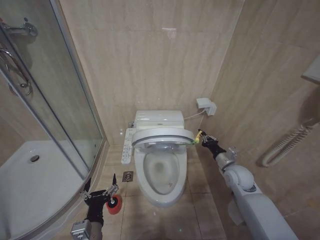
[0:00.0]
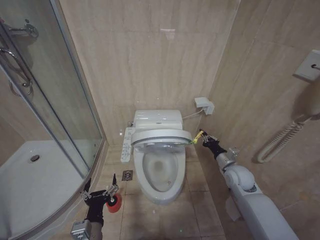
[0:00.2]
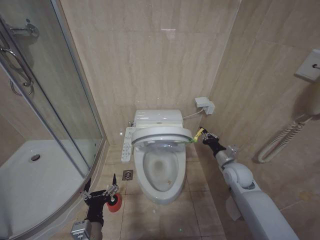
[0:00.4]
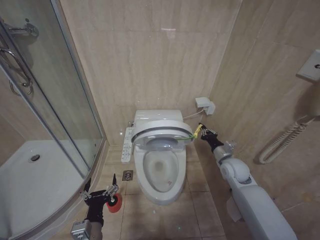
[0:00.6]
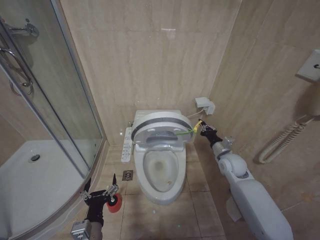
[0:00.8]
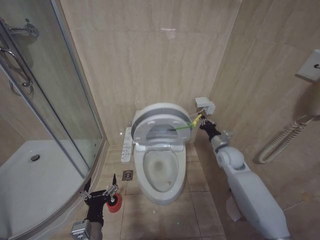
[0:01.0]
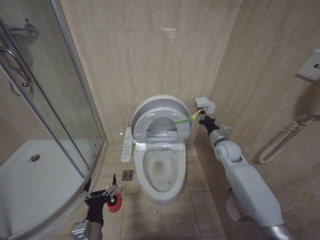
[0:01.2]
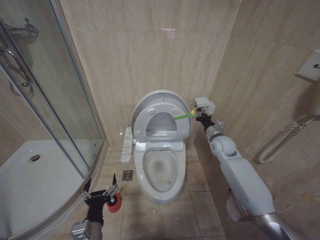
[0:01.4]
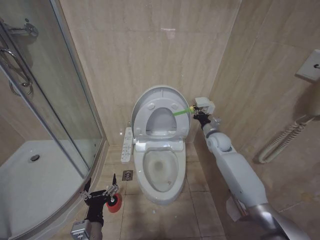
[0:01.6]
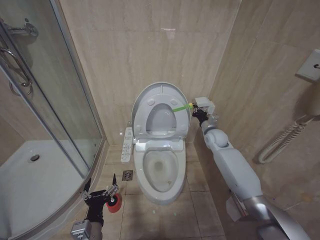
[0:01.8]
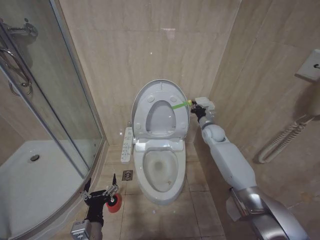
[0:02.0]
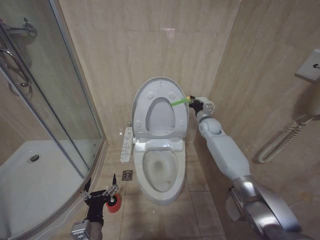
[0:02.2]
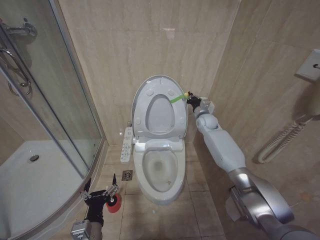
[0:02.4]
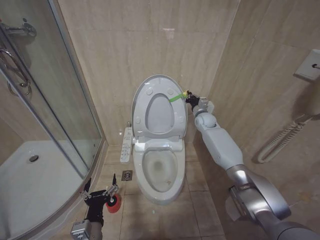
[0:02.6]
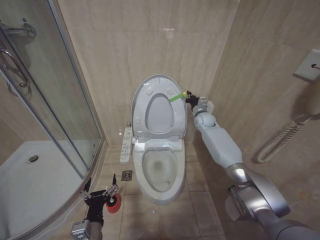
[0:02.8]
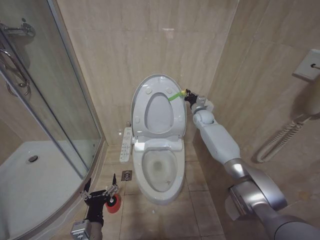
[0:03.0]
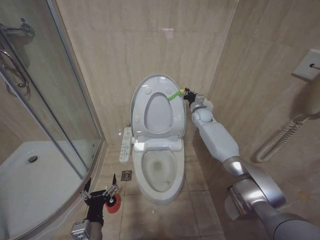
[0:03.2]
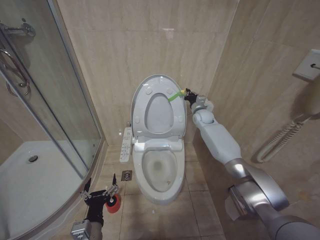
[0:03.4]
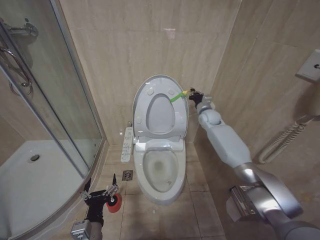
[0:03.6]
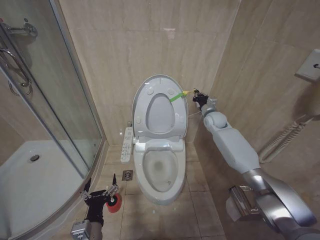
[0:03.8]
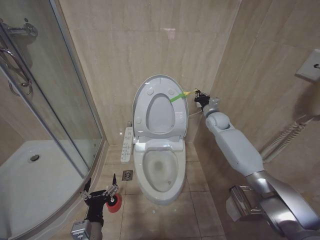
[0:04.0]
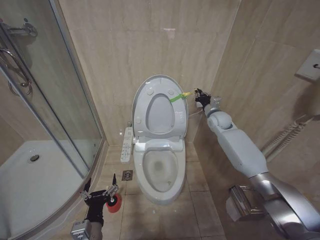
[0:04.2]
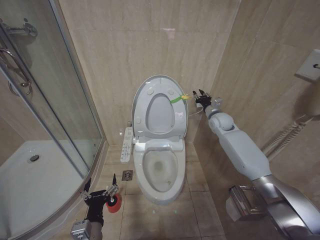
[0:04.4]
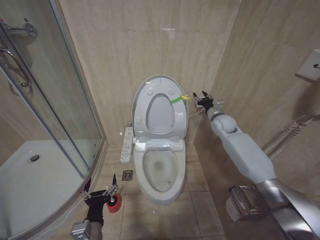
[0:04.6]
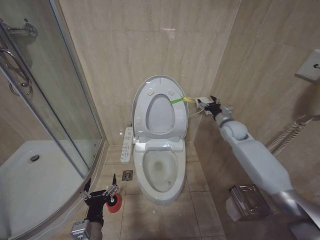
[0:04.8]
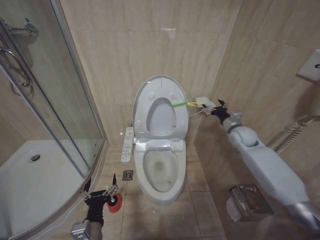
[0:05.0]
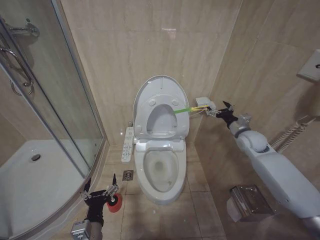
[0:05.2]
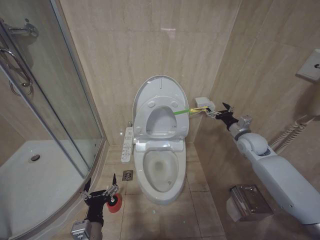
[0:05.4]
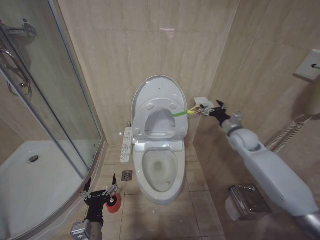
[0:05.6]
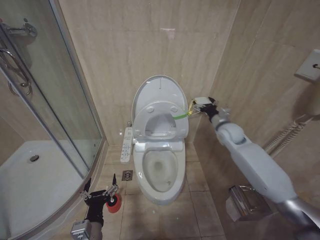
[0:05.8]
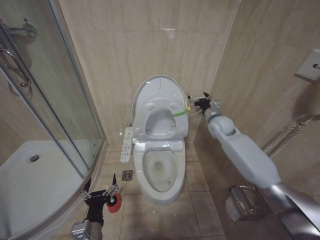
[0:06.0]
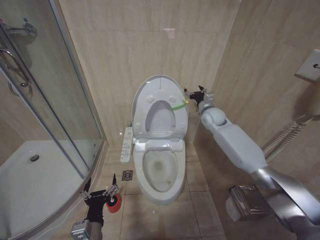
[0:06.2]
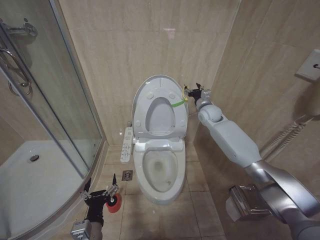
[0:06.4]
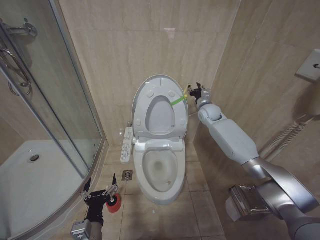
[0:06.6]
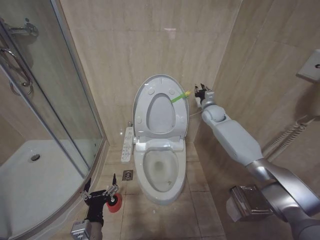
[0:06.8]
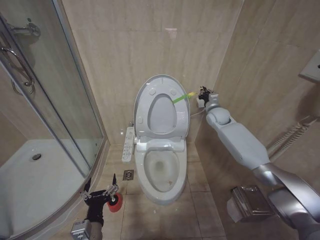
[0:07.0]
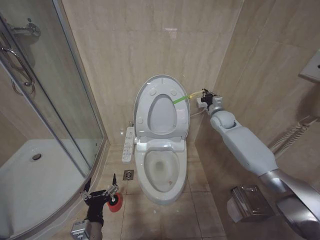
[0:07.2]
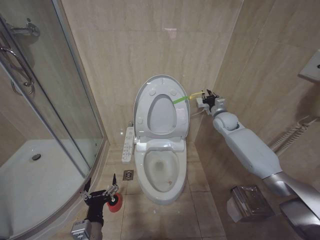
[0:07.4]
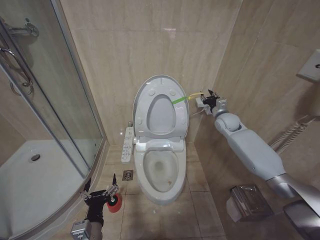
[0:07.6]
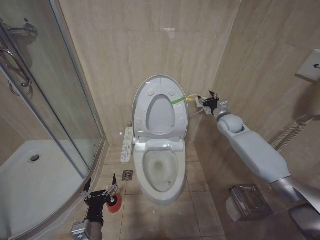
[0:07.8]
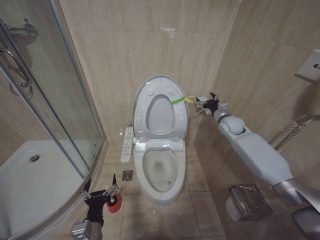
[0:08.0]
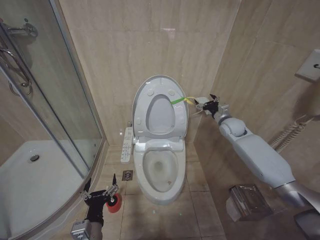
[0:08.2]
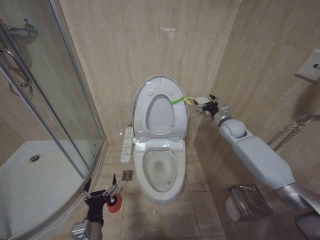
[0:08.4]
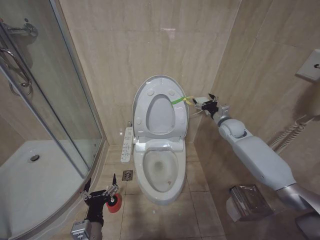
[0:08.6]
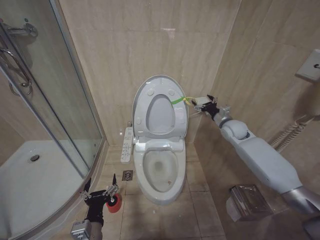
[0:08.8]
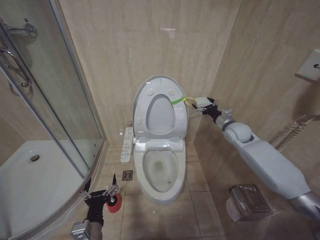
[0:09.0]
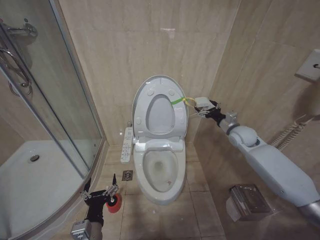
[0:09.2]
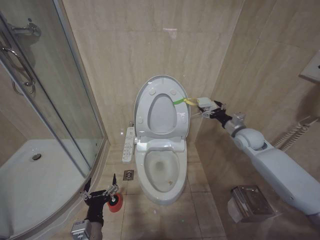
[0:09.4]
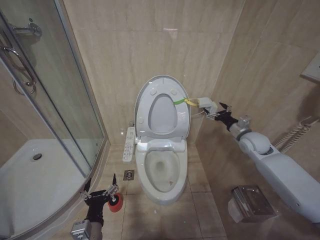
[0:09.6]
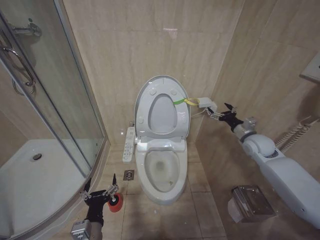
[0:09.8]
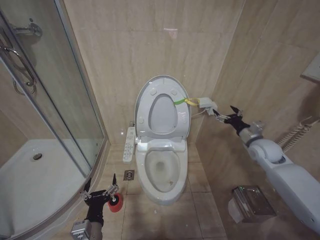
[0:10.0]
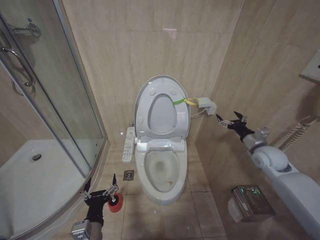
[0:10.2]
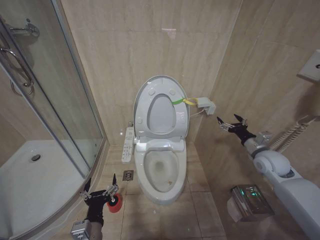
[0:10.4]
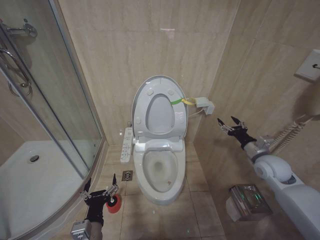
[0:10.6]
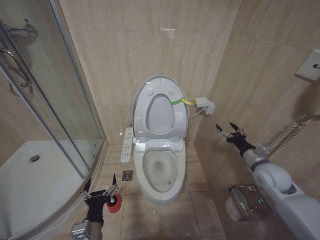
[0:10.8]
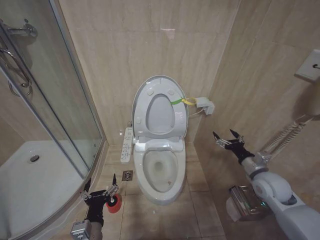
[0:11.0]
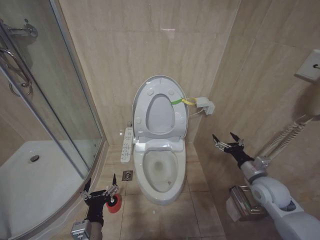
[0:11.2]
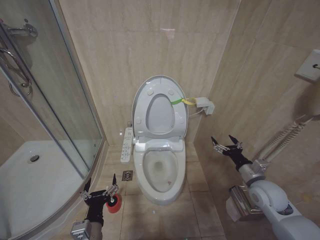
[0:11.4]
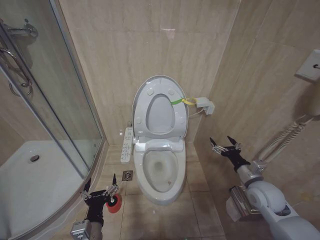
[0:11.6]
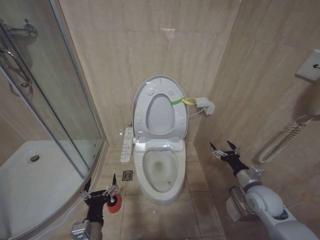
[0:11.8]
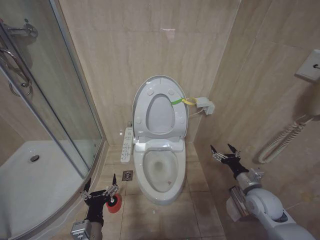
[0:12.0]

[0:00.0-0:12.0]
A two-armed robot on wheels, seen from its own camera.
Task of the whole recording: Open the toilet lid, clean the toilet bowl with a toilet brush, close the toilet lid, and flush.
0:00.0 to 0:01.6: The right gripper is displaced forward and upward by some 15 cm.
0:01.6 to 0:03.0: The right gripper goes about 15 cm forward and upward.
0:03.0 to 0:04.4: The right gripper moves backward, about 5 cm.
0:04.4 to 0:06.0: The right gripper opens its fingers.
0:06.0 to 0:07.6: The right gripper closes.
0:07.6 to 0:09.0: The right gripper changes place by roughly 5 cm, and opens its fingers.
0:09.0 to 0:10.4: The right gripper heads backward and to the right, covering about 15 cm.
0:10.4 to 0:12.0: The right gripper travels downward, backward and to the left by roughly 15 cm.

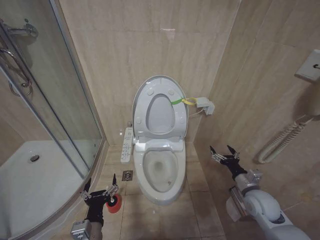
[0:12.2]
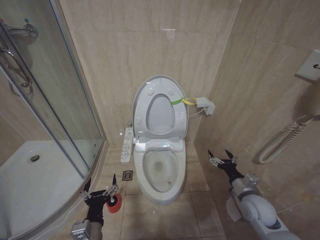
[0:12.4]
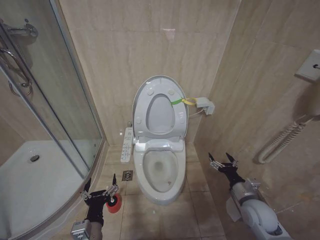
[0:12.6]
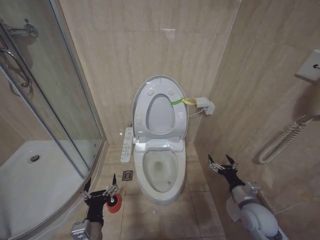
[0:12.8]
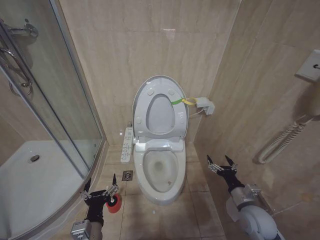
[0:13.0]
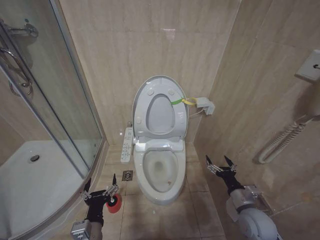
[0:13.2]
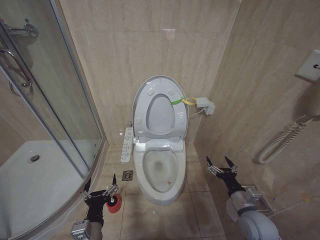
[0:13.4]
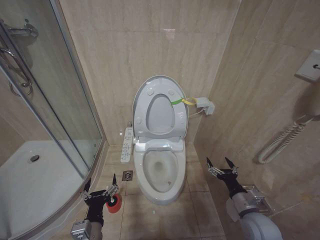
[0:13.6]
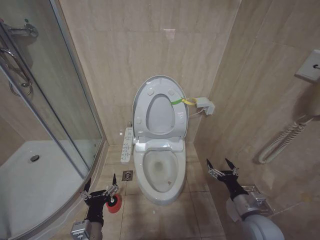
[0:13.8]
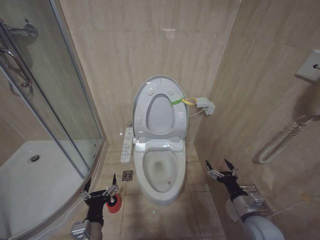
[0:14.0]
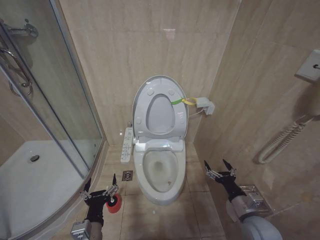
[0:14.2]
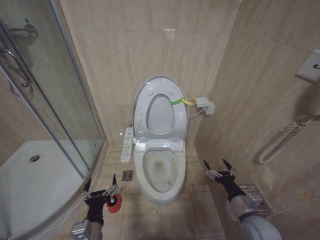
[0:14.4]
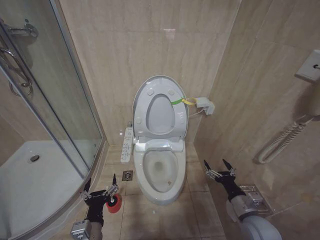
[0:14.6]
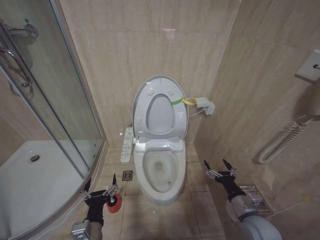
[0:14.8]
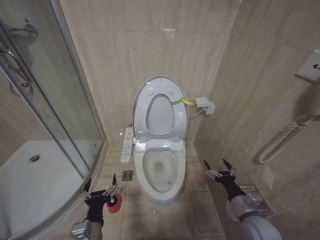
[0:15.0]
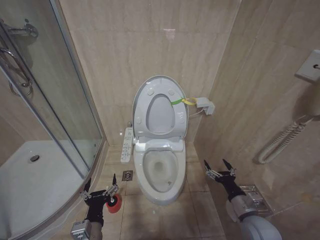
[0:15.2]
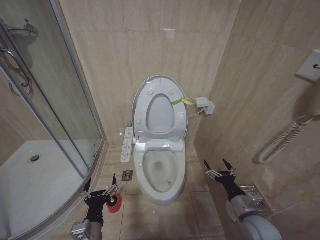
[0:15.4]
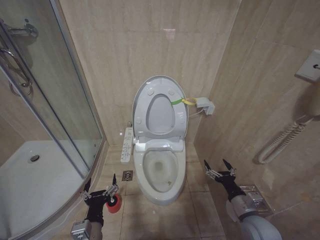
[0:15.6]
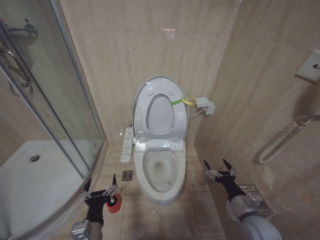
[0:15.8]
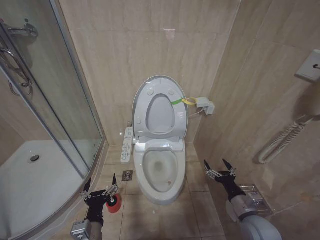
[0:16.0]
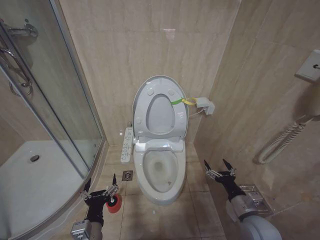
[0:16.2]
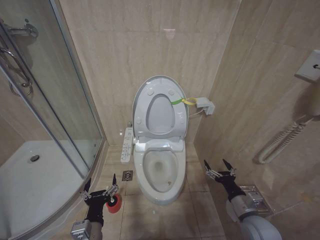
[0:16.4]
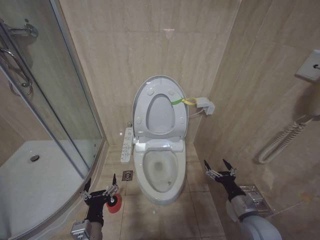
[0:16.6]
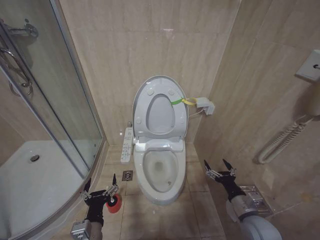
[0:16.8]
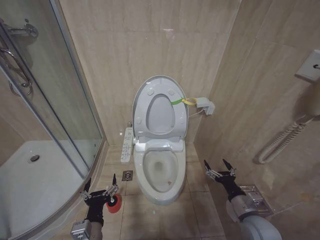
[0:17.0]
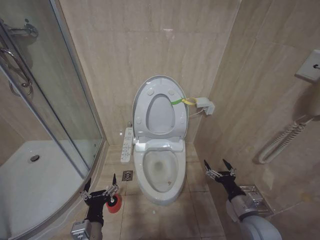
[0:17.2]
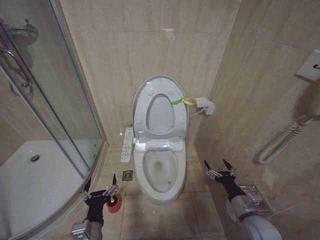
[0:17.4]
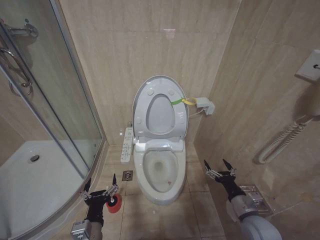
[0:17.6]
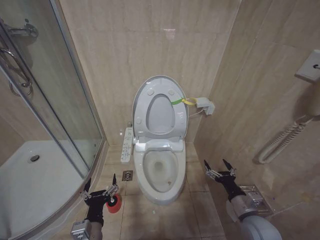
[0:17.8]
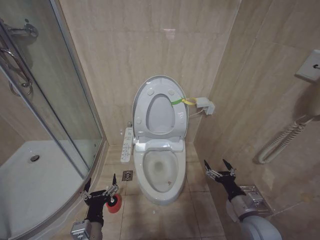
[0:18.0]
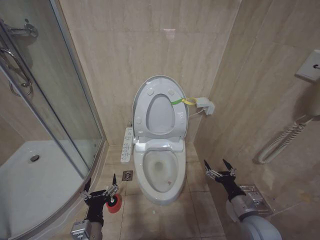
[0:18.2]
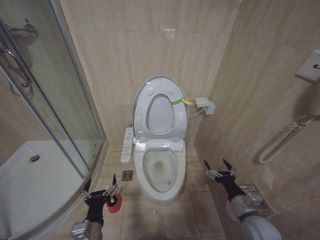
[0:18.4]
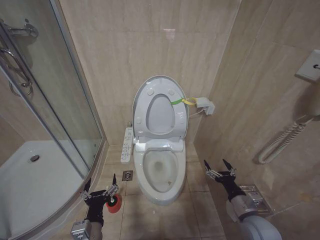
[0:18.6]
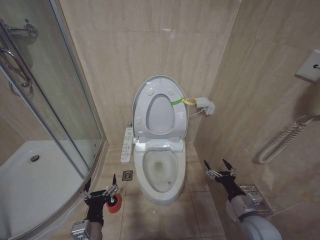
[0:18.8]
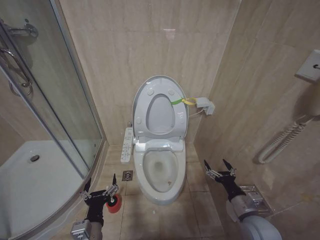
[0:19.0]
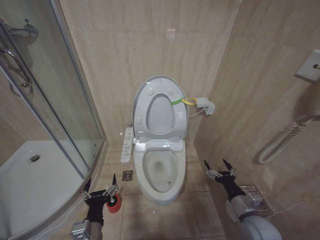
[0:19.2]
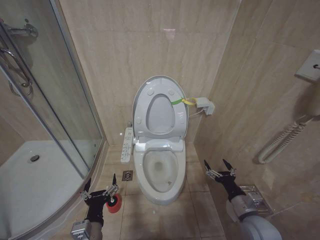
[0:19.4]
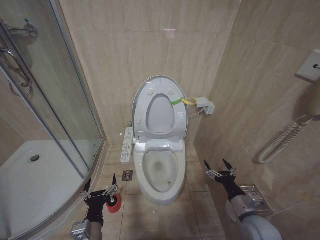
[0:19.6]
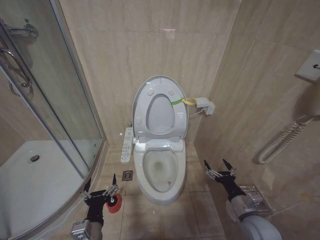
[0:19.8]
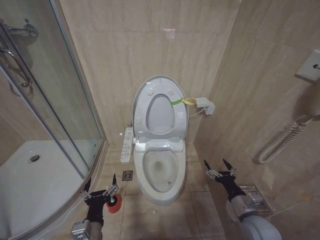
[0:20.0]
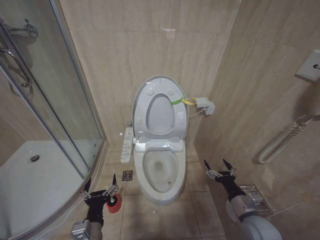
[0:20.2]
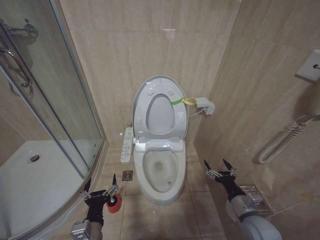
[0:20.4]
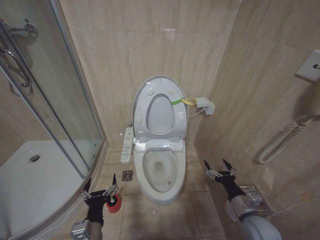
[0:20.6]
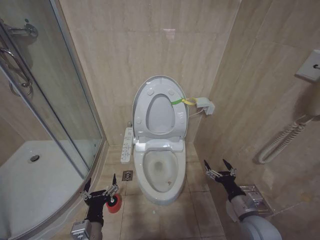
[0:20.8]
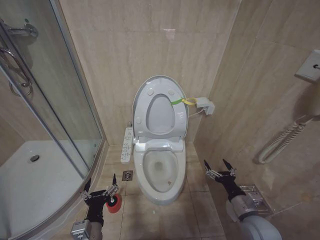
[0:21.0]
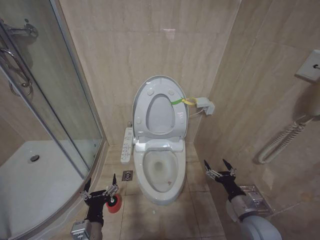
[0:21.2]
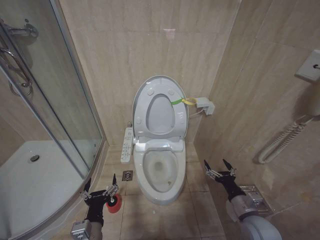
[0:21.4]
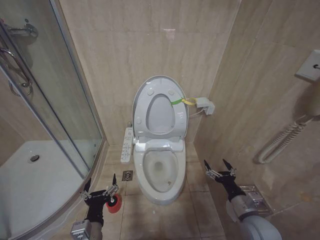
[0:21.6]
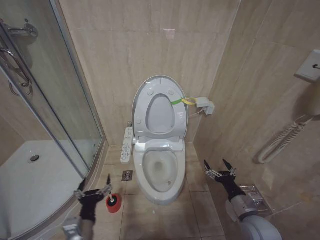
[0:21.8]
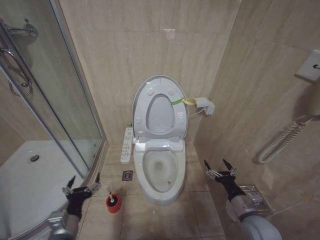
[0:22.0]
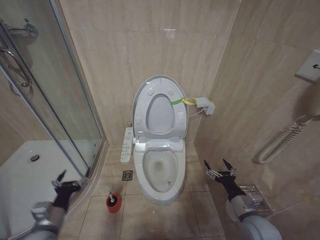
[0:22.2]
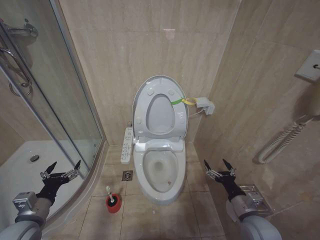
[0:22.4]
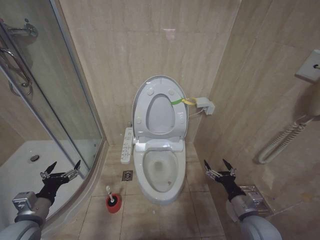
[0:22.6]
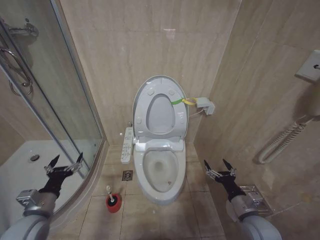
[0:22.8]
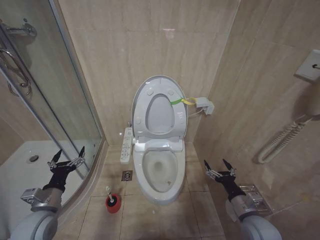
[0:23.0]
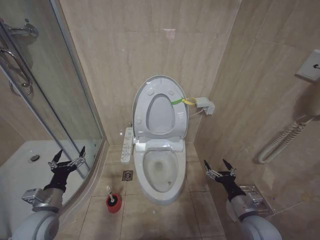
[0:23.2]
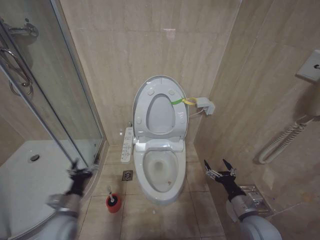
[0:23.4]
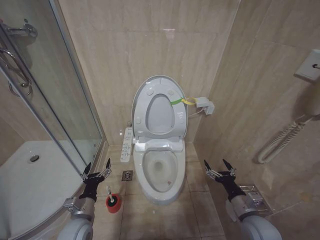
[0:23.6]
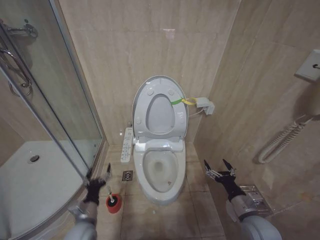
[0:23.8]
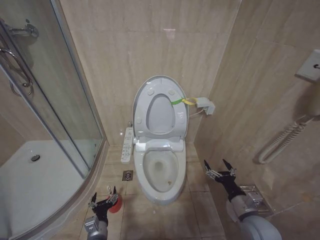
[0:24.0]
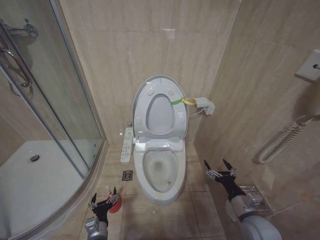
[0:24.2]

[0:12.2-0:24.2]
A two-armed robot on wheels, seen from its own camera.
Task of the whole recording: Open the toilet lid, clean the toilet bowl with a toilet brush, close the toilet lid, and flush.
0:12.2 to 0:13.8: The right gripper travels backward by about 5 cm.
0:13.8 to 0:21.2: Both grippers stay about where they are.
0:21.2 to 0:22.6: The left gripper shifts approximately 20 cm to the left.
0:22.6 to 0:24.2: The left gripper shifts roughly 25 cm downward and to the right.
